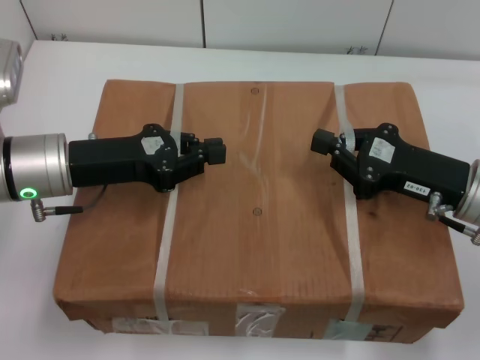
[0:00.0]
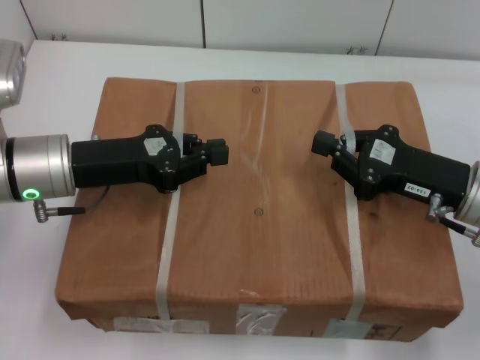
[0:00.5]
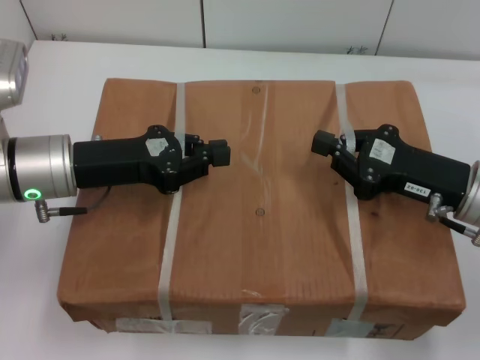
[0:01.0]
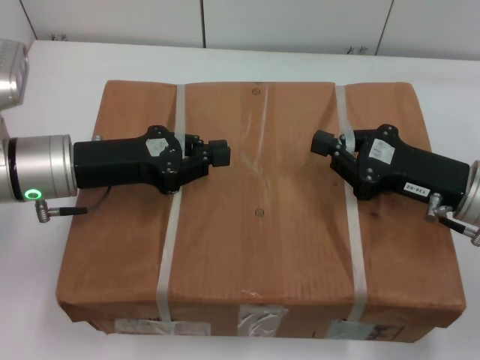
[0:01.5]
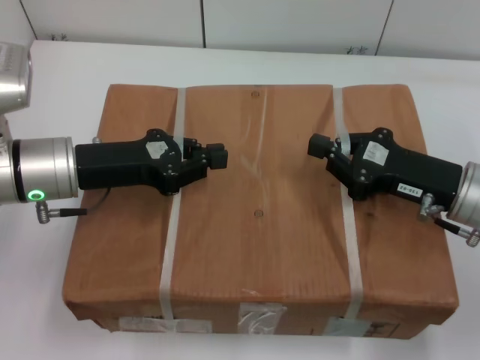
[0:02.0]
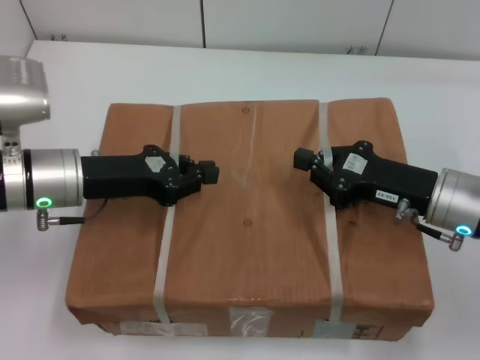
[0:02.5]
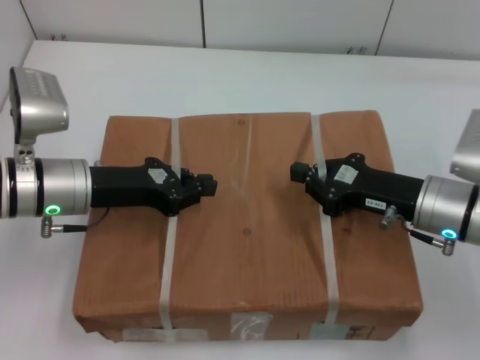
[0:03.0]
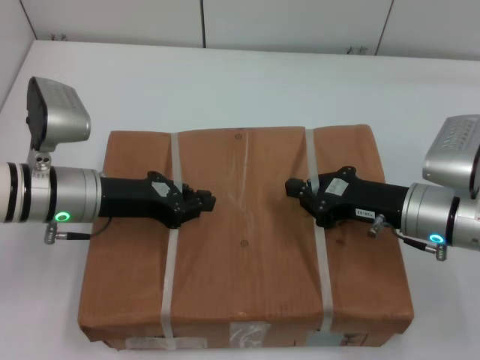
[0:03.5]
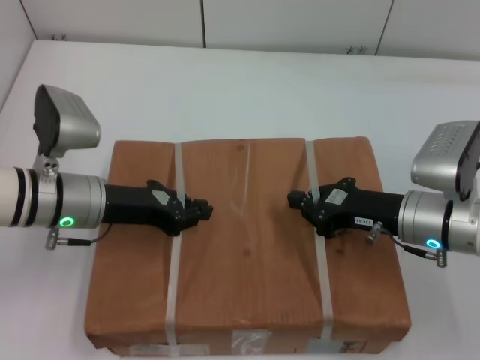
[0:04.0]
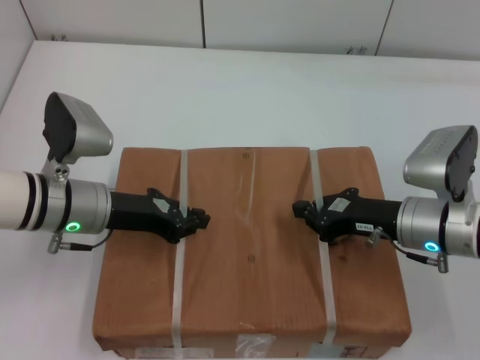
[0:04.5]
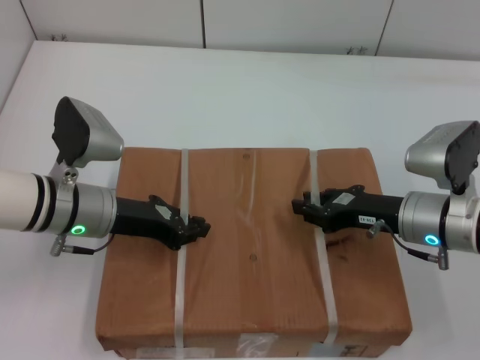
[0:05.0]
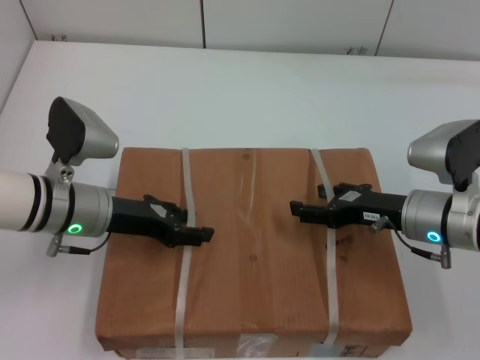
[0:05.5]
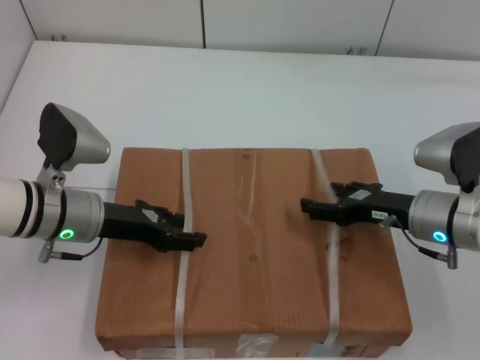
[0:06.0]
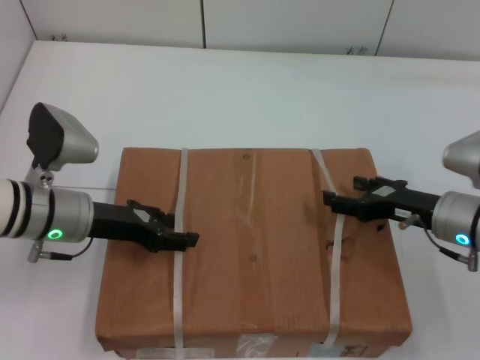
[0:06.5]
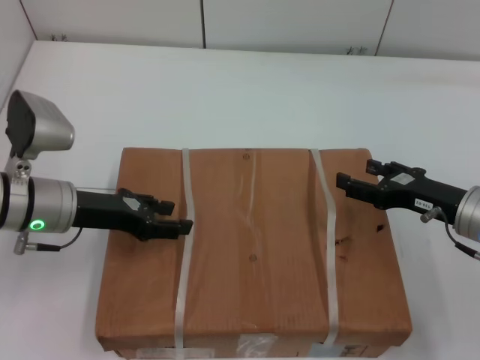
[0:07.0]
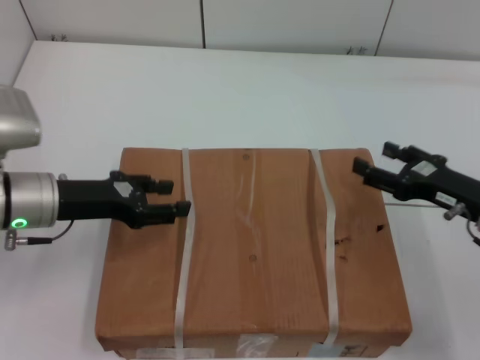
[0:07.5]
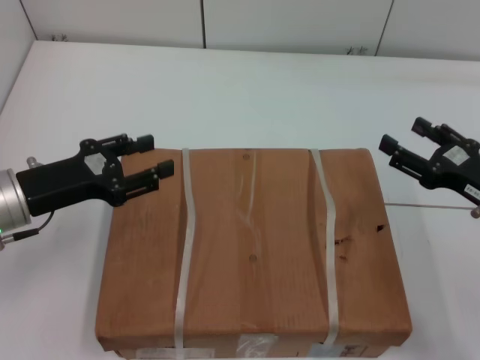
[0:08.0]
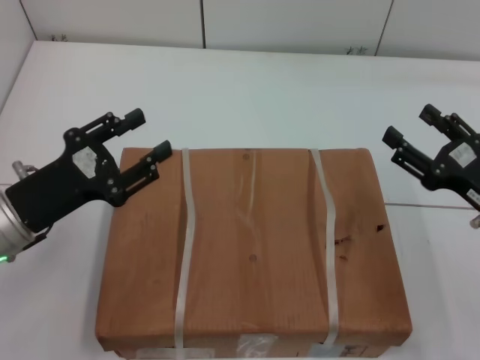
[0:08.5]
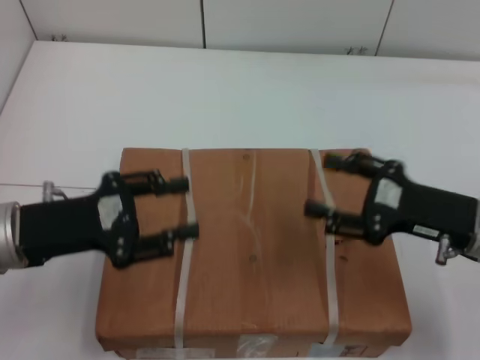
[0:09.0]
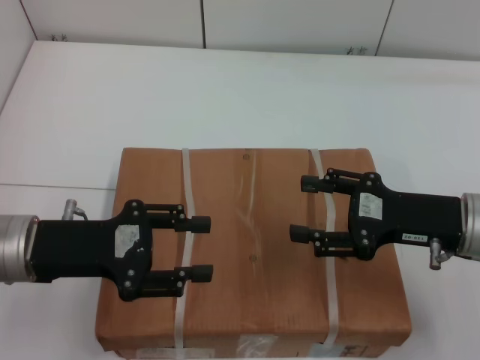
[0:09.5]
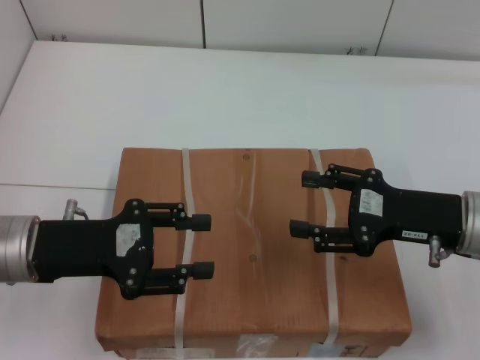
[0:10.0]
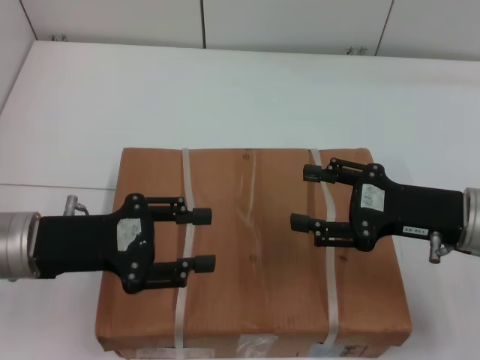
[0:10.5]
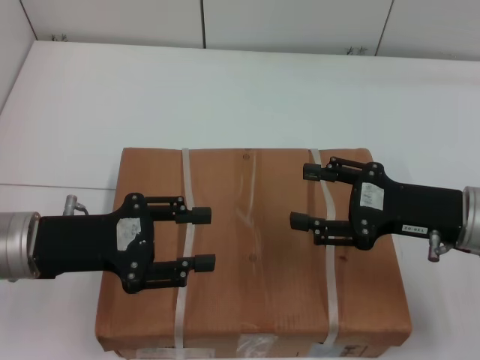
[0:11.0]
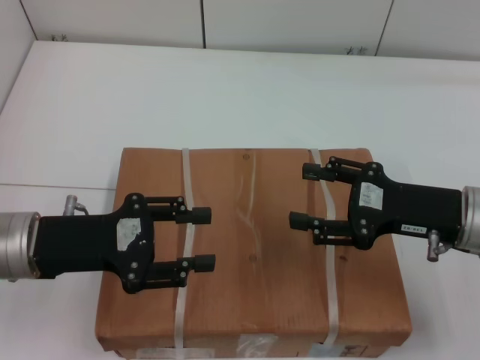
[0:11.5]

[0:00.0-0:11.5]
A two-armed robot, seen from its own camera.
Task of the whole recording: place the box on the table with both arms.
Step, 0:00.0 to 0:04.5: Place the box on the table with left gripper.
Step, 0:00.0 to 0:04.5: Place the box on the table with right gripper.
Step, 0:05.0 to 0:06.5: Loosen the box on the table with left gripper.
Step, 0:05.0 to 0:06.5: Loosen the box on the table with right gripper.
0:00.0 to 0:02.0: Both grippers stay put.
0:02.0 to 0:04.0: The right gripper changes place by roughly 5 cm.
0:04.0 to 0:06.0: The left gripper opens its fingers, while the right gripper opens its fingers.
0:06.0 to 0:07.5: The right gripper travels to the right by about 5 cm.
0:07.5 to 0:09.5: The right gripper changes place by approximately 5 cm; the left gripper is displaced backward by roughly 5 cm.
0:09.5 to 0:11.5: Both grippers stay about where they are.

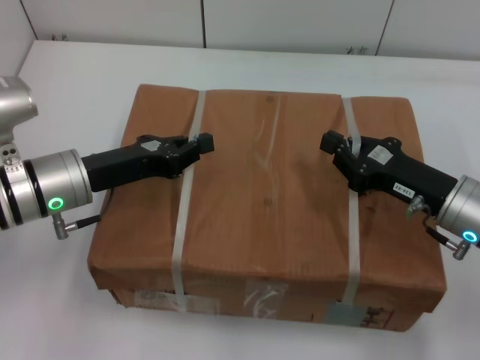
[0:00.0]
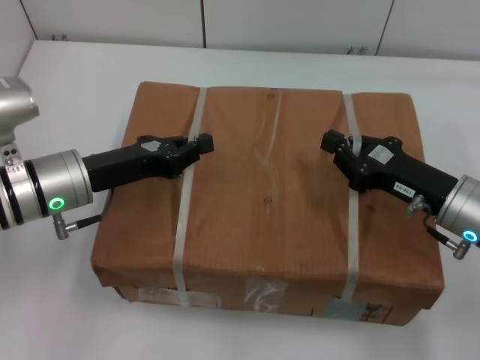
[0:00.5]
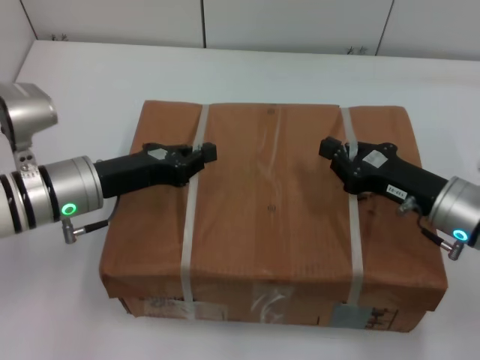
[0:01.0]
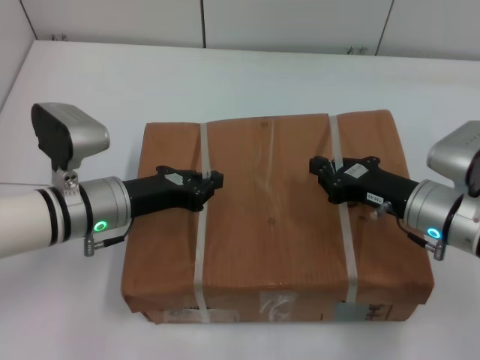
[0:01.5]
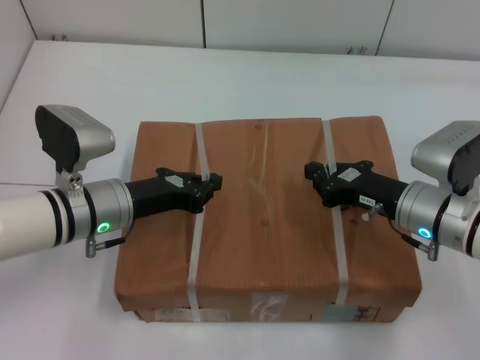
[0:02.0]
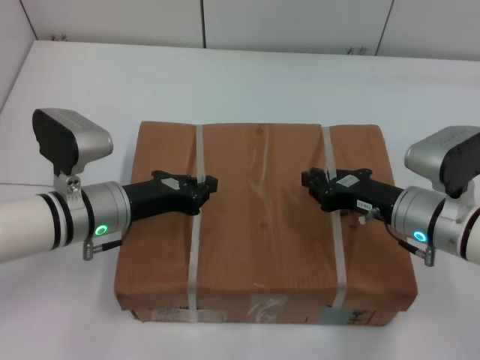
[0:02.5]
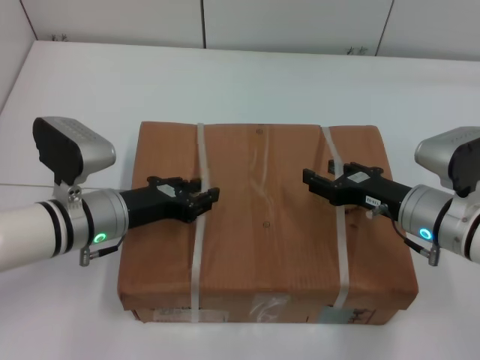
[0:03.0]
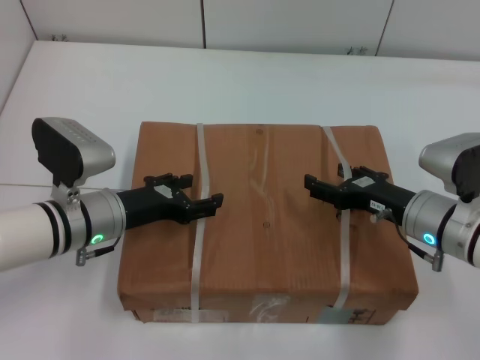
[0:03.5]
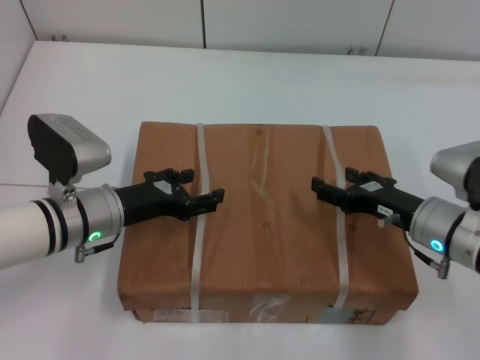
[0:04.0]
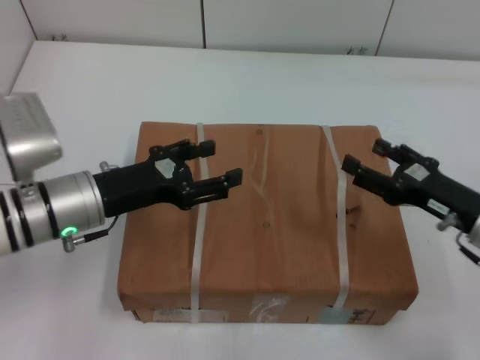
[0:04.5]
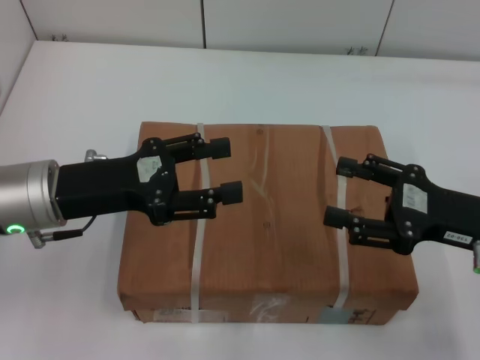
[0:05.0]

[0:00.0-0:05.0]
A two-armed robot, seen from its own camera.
Task of the whole recording: place the box on the table with both arms.
Step, 0:00.0 to 0:02.5: Place the box on the table with left gripper.
Step, 0:00.0 to 0:02.5: Place the box on the table with right gripper.
Step, 0:03.0 to 0:04.0: Loosen the box on the table with left gripper.
Step, 0:03.0 to 0:04.0: Loosen the box on the table with right gripper.
0:00.0 to 0:02.5: The right gripper changes place by roughly 5 cm. The left gripper moves about 5 cm.
0:02.5 to 0:05.0: The left gripper goes about 10 cm upward, and opens its fingers. Meanwhile the right gripper is displaced upward, to the right and backward by some 10 cm, and opens.
